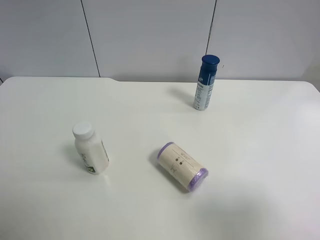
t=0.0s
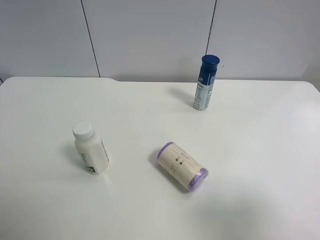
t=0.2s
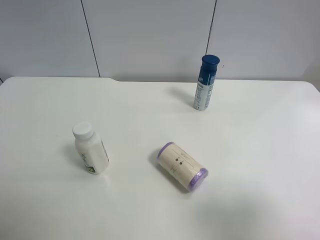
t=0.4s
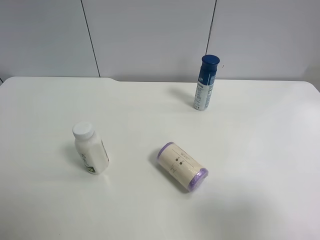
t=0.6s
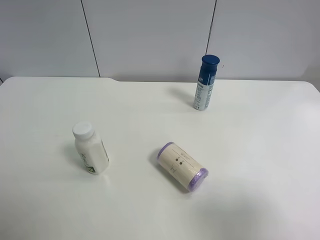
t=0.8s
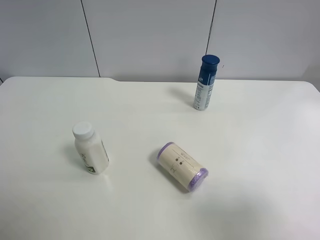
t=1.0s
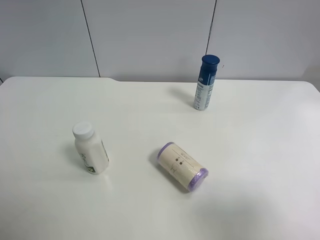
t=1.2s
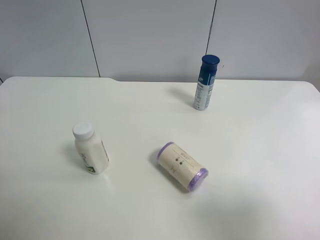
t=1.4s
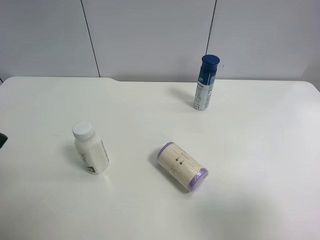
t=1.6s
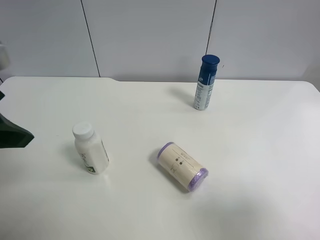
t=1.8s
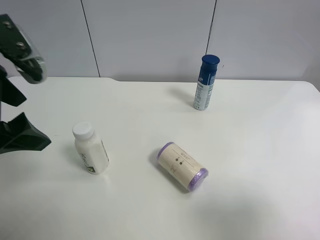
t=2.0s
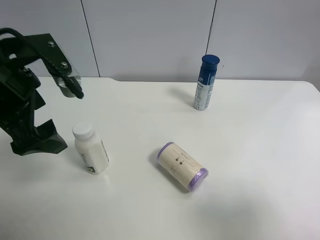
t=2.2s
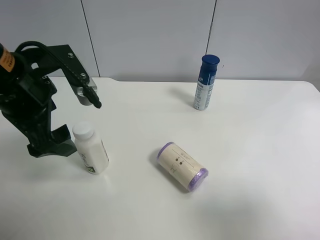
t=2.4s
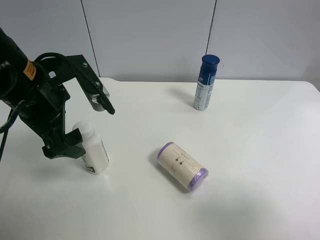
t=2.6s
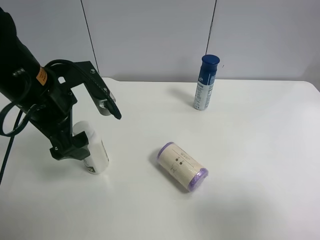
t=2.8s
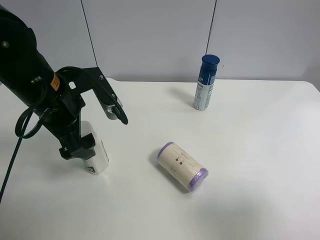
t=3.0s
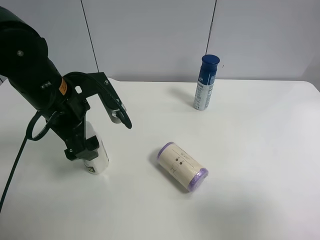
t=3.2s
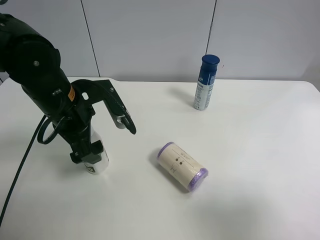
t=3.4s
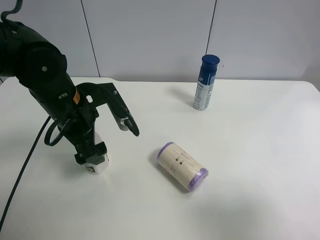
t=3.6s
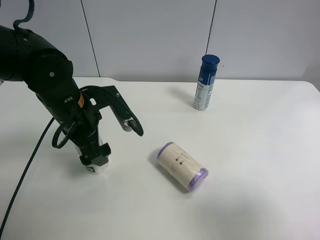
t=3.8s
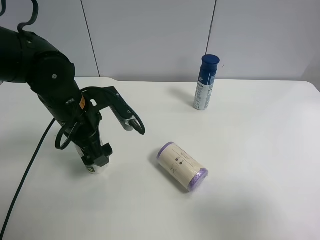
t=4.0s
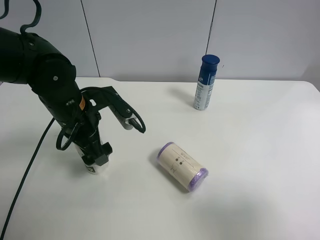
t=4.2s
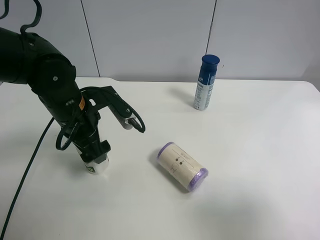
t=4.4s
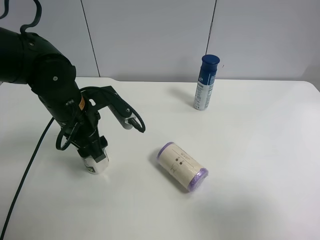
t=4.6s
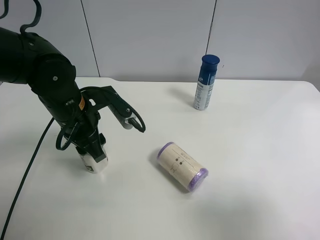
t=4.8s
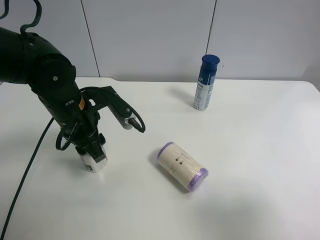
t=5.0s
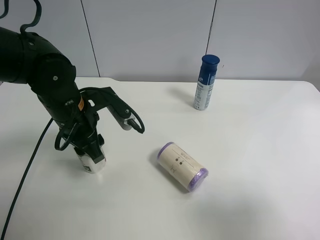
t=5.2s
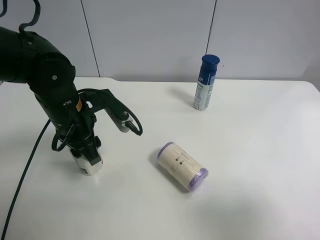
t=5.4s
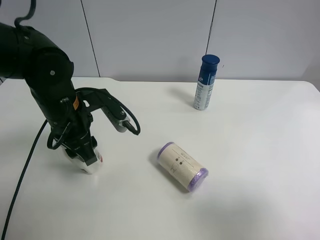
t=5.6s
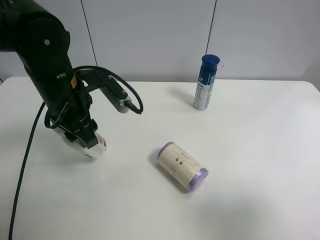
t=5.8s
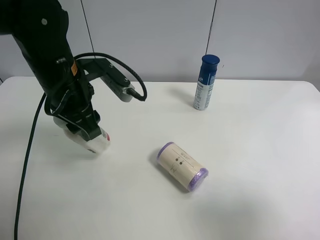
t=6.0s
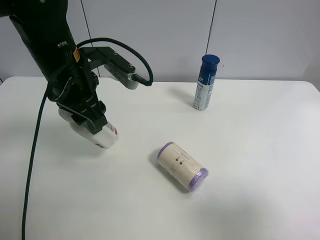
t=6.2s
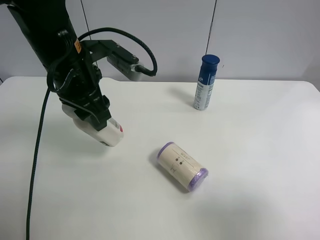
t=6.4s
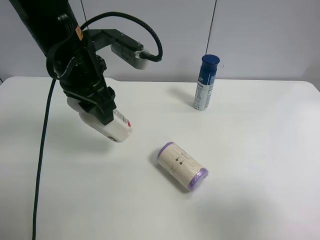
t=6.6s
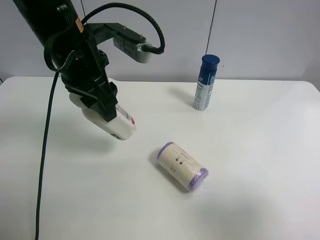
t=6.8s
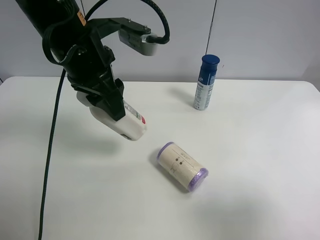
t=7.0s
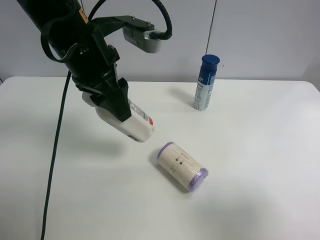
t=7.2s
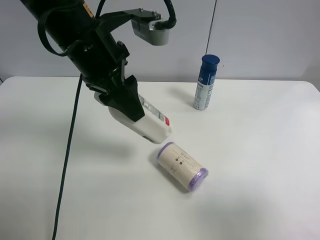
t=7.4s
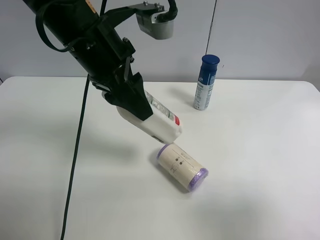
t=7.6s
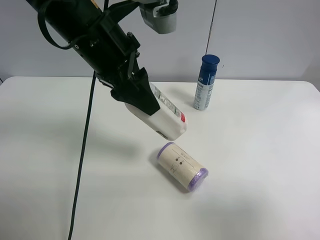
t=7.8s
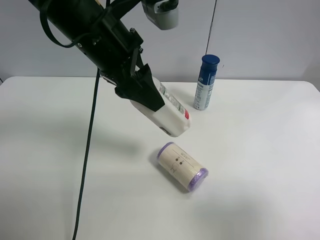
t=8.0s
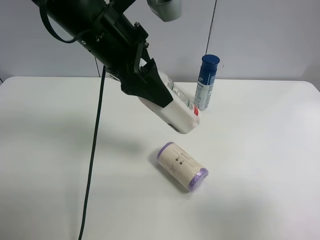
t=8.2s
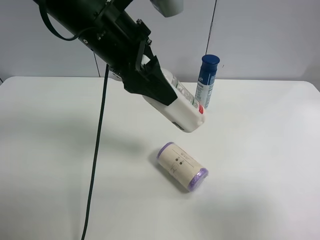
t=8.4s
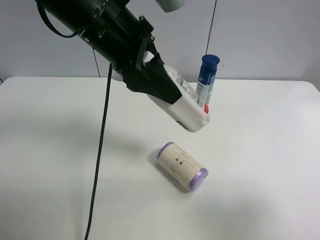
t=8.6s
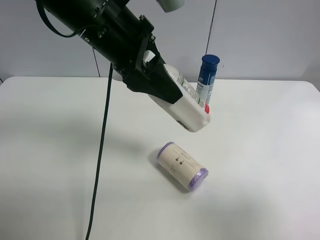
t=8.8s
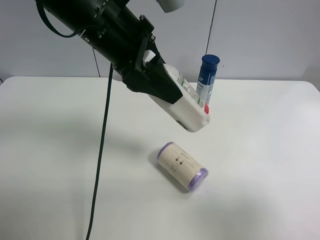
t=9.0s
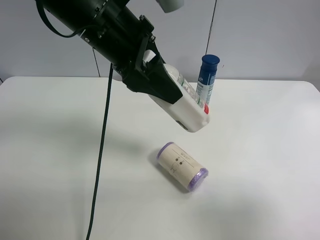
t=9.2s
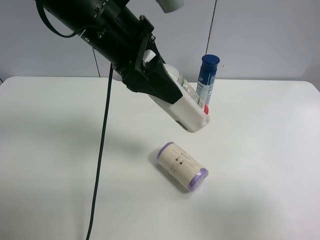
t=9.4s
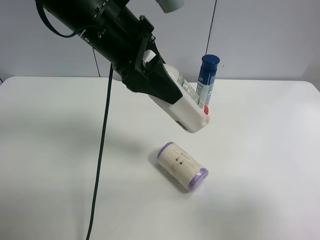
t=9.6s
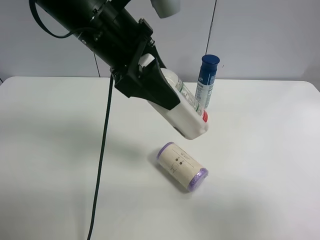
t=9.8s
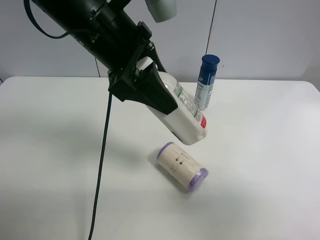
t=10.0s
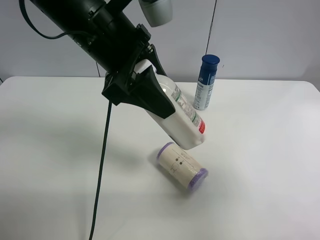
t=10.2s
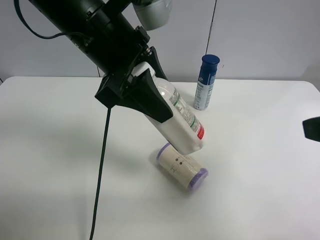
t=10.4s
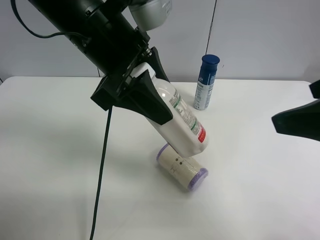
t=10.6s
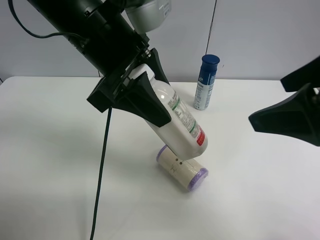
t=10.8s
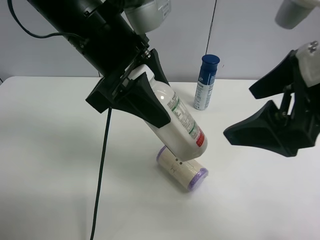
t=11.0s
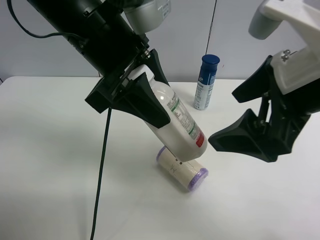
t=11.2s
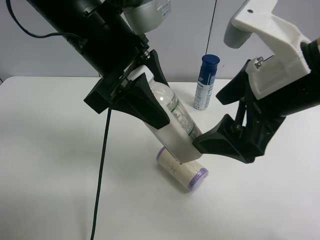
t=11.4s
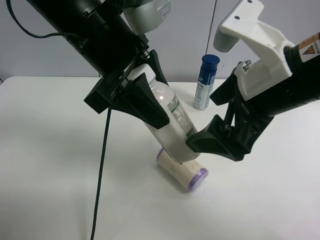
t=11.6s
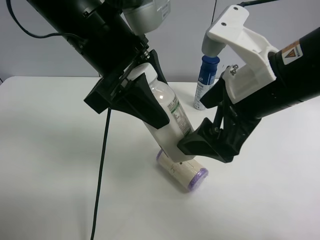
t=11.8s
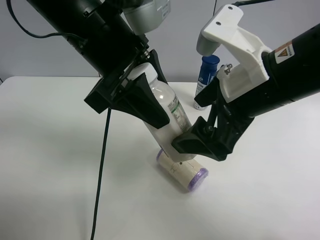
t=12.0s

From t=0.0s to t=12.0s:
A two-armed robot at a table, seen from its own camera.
Task of the whole recording: use the left gripper to pick up the item and transfer it from the left gripper to the right gripper.
From t=1.6s to t=3.0s: The left gripper travels forward, to the right and downward by some 20 cm.
From t=3.0s to t=4.4s: The left gripper moves some 5 cm.
From t=4.4s to t=6.0s: The left gripper travels upward by about 5 cm, and closes its fingers.
From t=6.0s to t=7.6s: The left gripper goes roughly 10 cm upward and to the right.
From t=7.6s to t=9.0s: The grippers stay close to where they were, moving slightly.
From t=9.0s to t=10.4s: The right gripper heads forward and upward, covering roughly 10 cm.
From t=10.4s to t=12.0s: The right gripper goes approximately 15 cm to the left and forward.

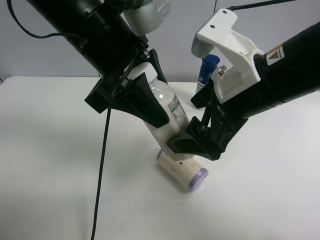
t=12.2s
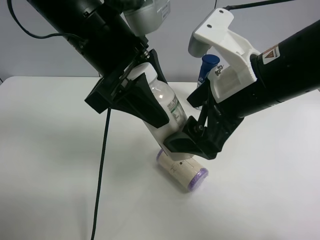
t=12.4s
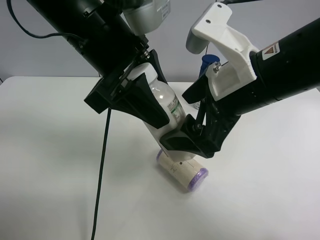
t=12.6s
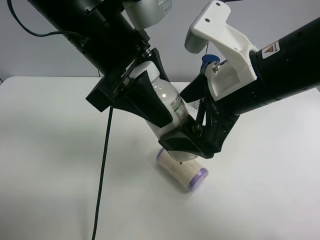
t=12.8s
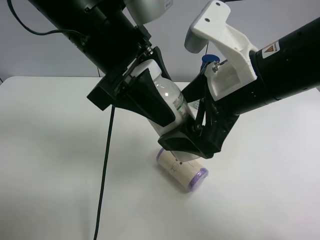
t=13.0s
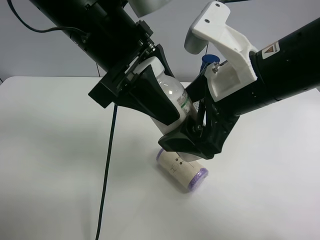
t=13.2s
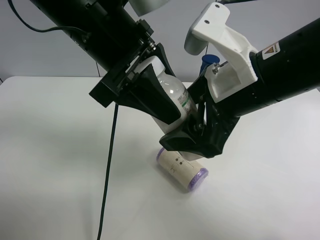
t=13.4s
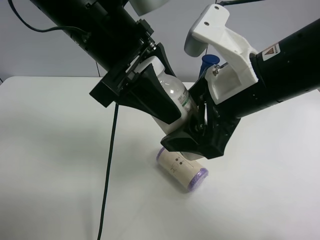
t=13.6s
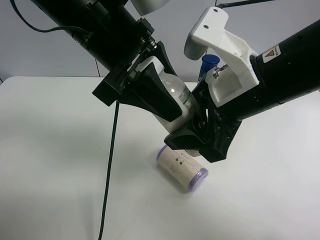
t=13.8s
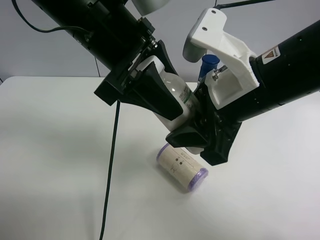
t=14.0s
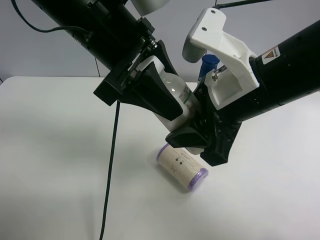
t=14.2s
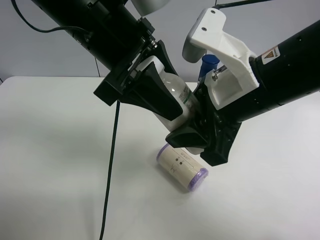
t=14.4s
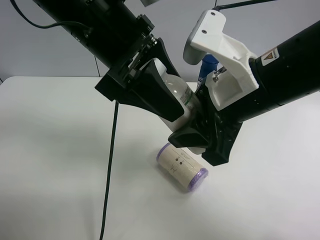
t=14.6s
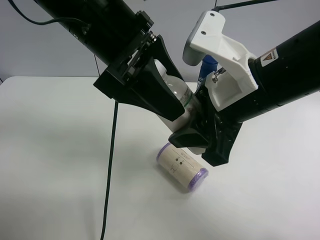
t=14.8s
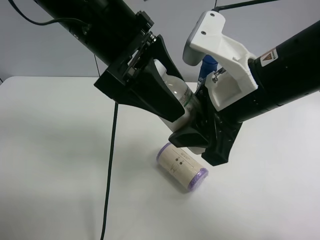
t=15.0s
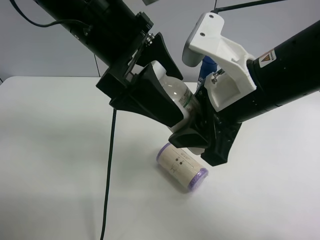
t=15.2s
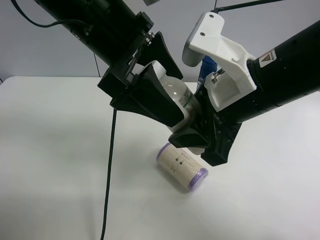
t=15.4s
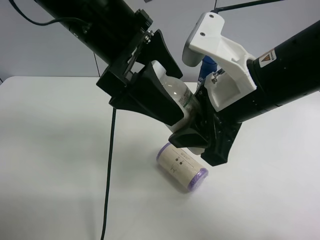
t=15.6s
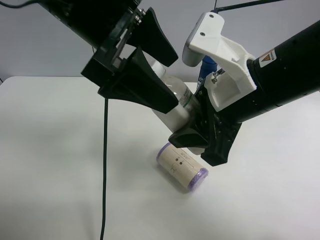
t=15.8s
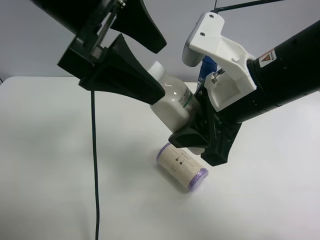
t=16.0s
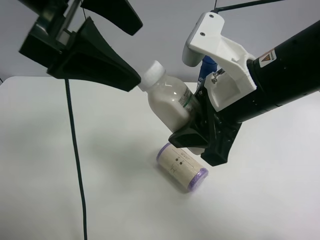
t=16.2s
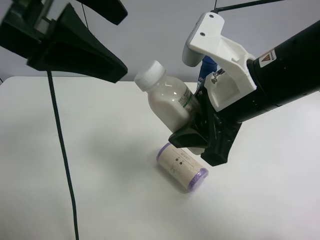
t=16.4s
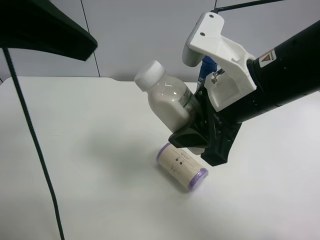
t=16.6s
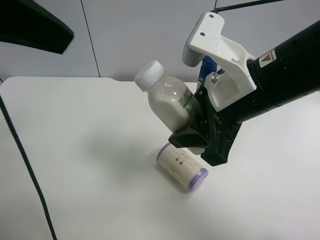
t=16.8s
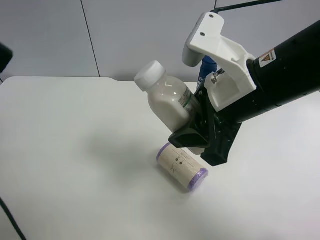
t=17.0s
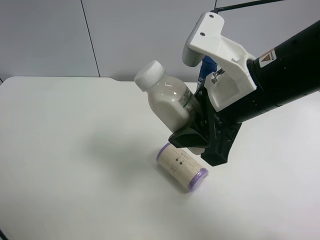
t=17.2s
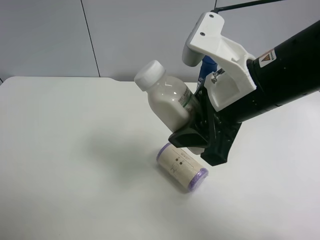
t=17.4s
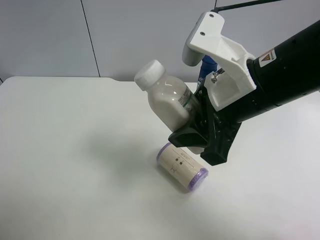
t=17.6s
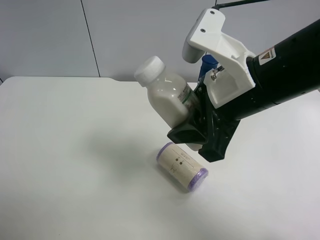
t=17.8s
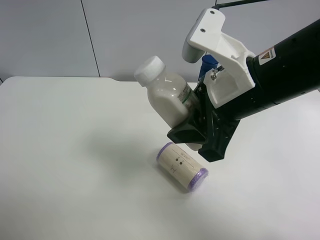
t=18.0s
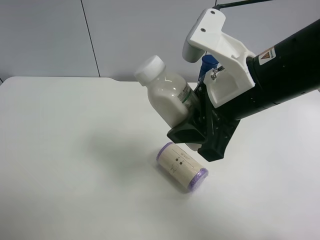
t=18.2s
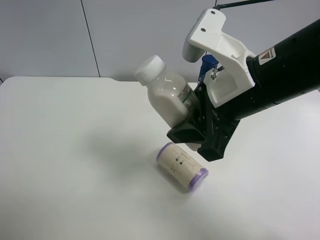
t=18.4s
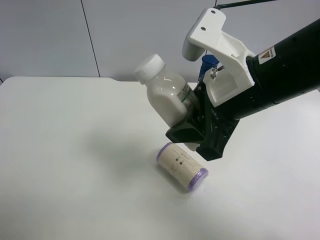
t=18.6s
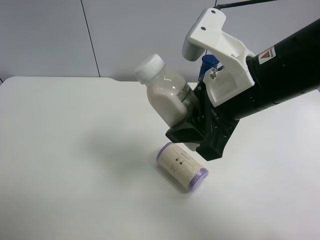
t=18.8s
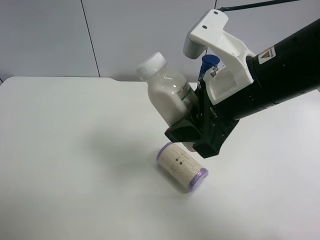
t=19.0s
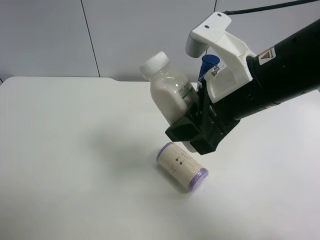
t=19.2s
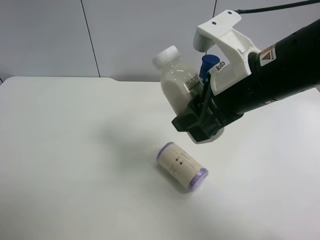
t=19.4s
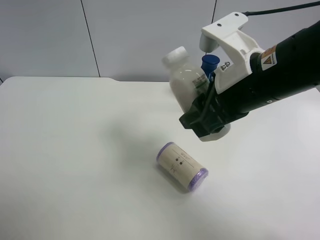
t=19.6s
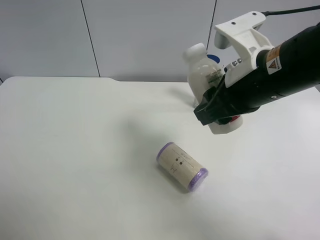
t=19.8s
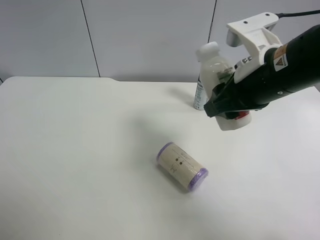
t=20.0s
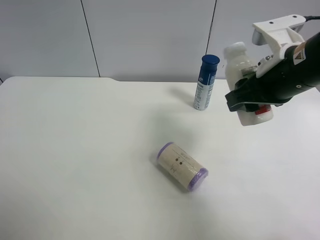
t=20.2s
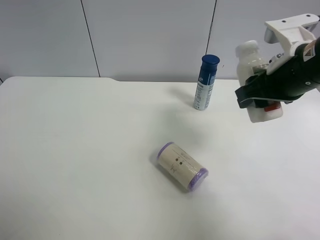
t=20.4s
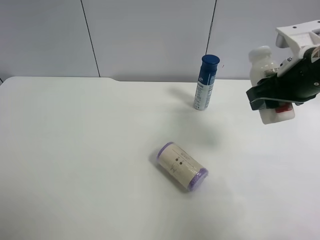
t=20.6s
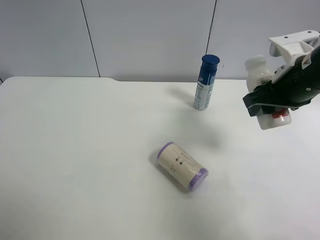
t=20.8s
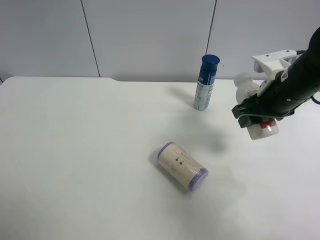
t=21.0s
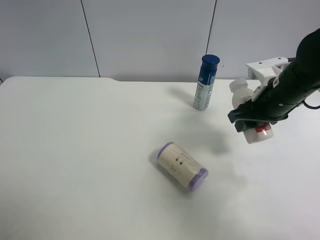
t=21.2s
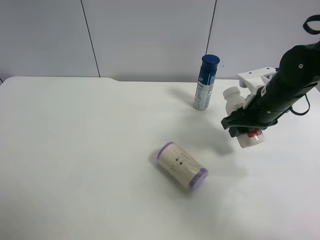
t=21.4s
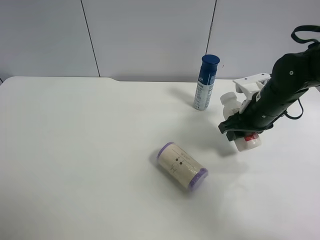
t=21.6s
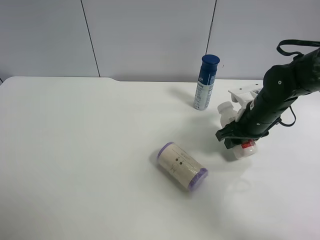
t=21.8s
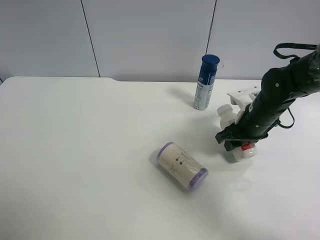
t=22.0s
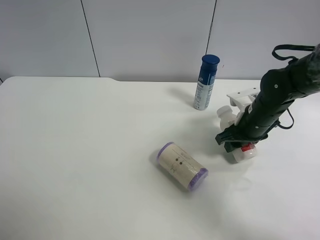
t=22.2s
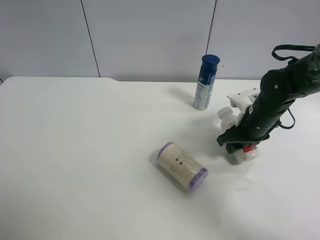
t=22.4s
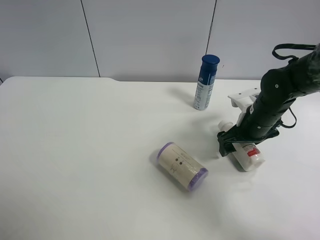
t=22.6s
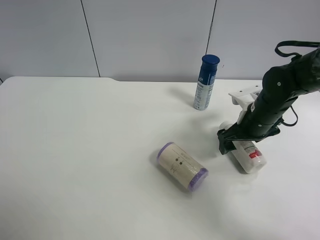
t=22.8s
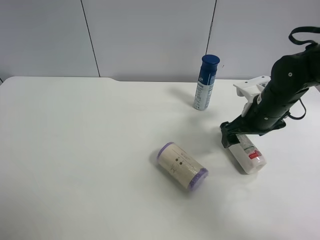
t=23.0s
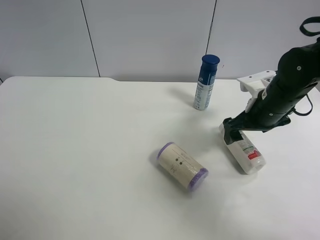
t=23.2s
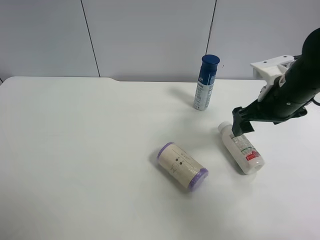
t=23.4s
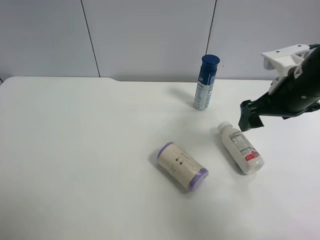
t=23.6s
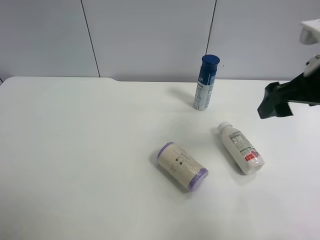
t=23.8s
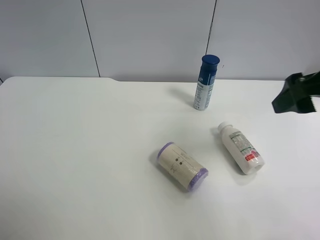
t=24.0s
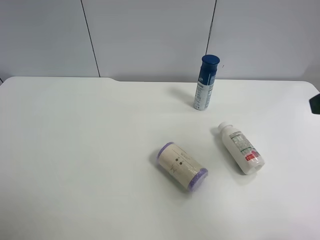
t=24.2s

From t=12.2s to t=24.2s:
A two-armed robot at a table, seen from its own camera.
Task of the whole recording: use the left gripper to pick up the item and transfer it from the left gripper to the right gripper.
From t=12.2s to t=13.8s: The right gripper closes.
From t=13.8s to t=15.2s: The left gripper opens up.
From t=15.2s to t=16.6s: The left gripper shifts about 15 cm upward, to the left and backward.
From t=16.6s to t=18.2s: The left gripper is displaced backward, to the left and downward by some 30 cm.
From t=19.8s to t=21.2s: The right gripper shifts some 15 cm downward, to the right and forward.
From t=21.2s to t=22.6s: The right gripper heads downward, covering some 5 cm, and opens up.
From t=22.6s to t=24.2s: The right gripper travels upward and backward by roughly 30 cm.
